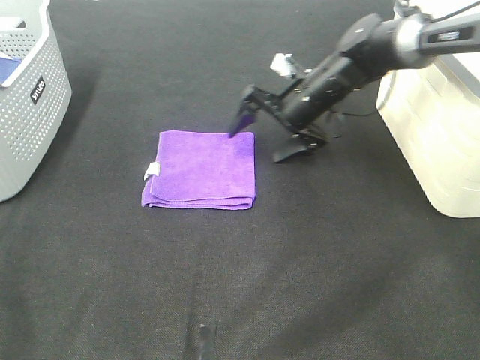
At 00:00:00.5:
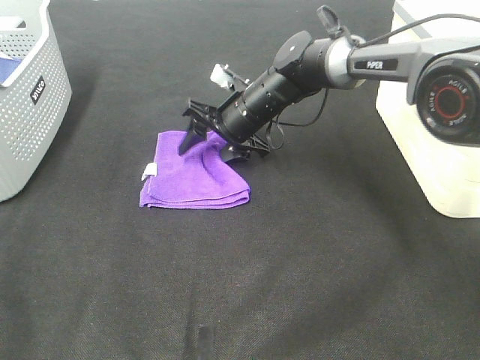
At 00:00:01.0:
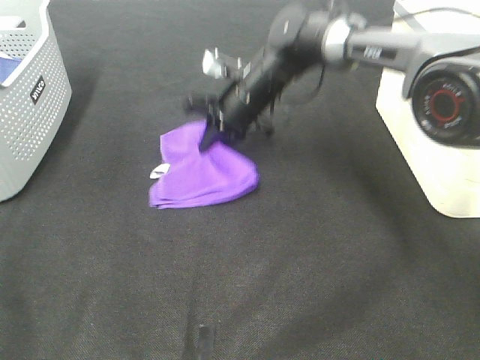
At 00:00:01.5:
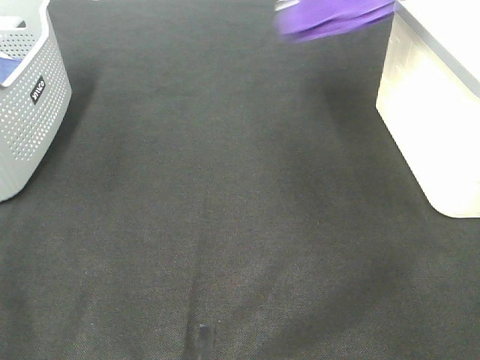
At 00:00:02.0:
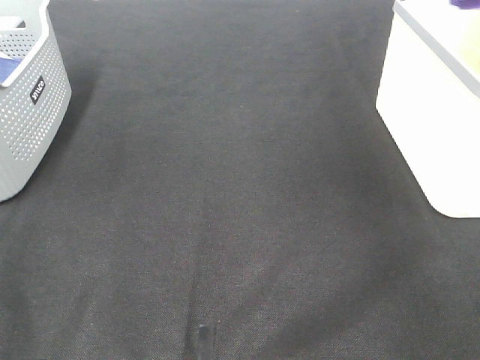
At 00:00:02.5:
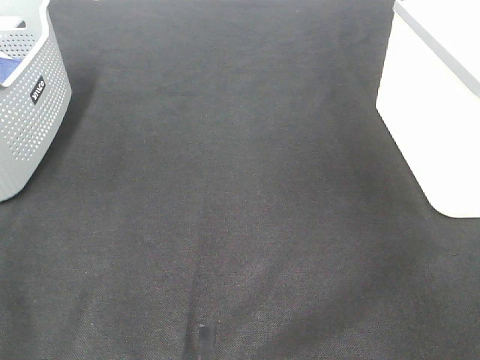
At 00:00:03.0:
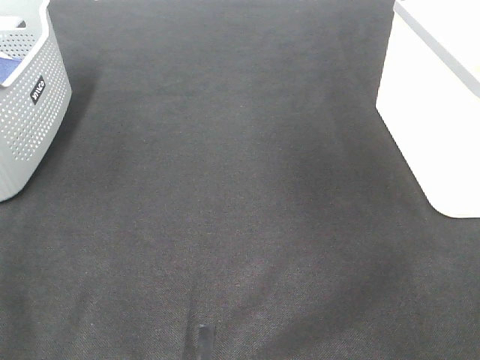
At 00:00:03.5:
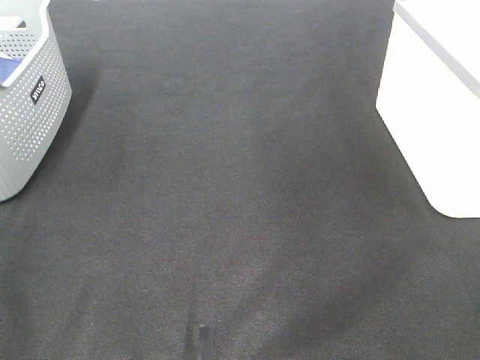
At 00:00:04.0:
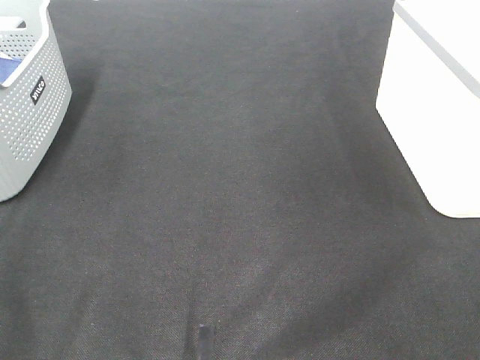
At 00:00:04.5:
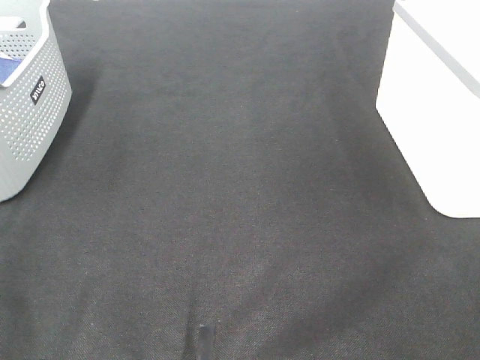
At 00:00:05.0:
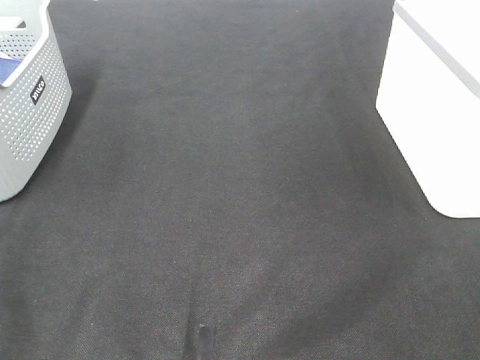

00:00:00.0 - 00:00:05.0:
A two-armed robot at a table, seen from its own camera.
Step, 00:00:01.0 - 00:00:02.0: Right hand: place the purple towel in right basket.
00:00:00.0 - 00:00:02.5: The right gripper heads to the right and upward, covering about 40 cm, and closes, then opens again.
